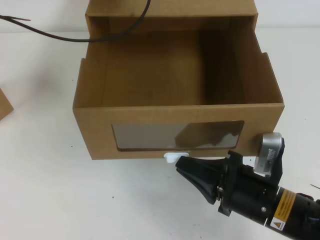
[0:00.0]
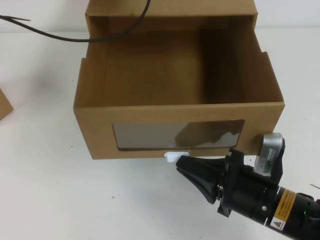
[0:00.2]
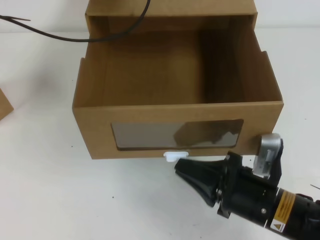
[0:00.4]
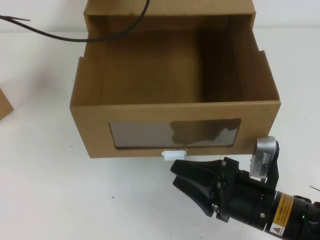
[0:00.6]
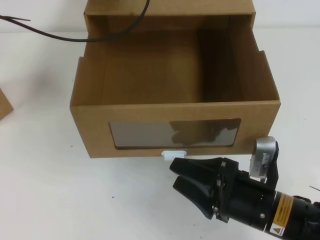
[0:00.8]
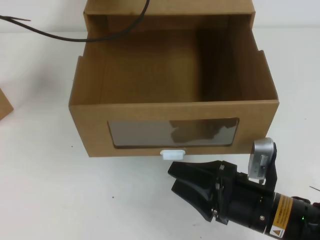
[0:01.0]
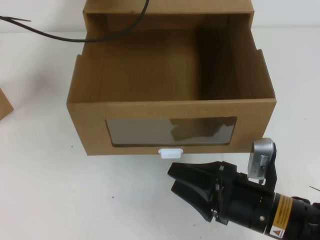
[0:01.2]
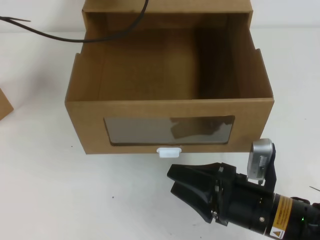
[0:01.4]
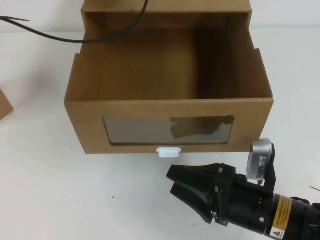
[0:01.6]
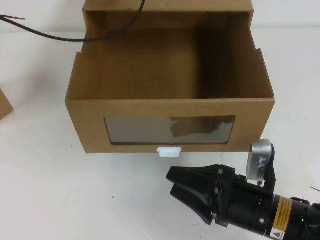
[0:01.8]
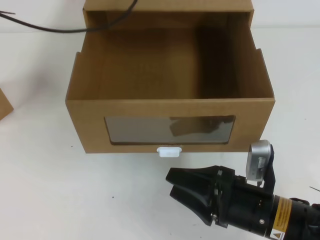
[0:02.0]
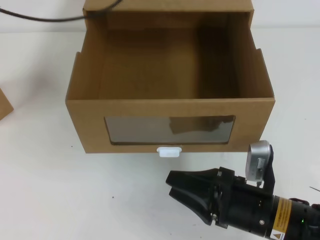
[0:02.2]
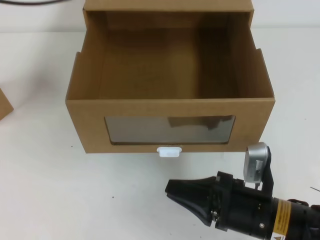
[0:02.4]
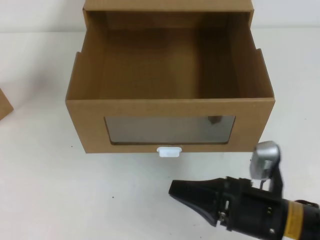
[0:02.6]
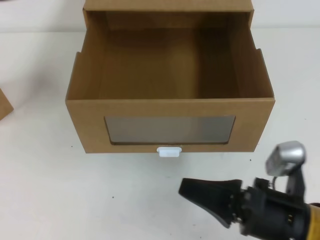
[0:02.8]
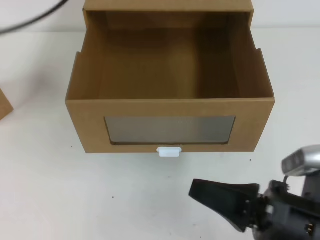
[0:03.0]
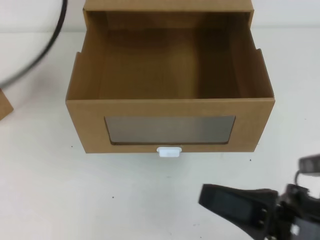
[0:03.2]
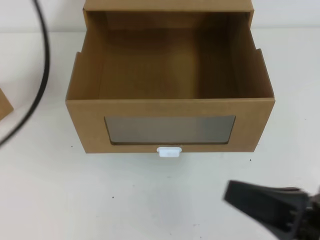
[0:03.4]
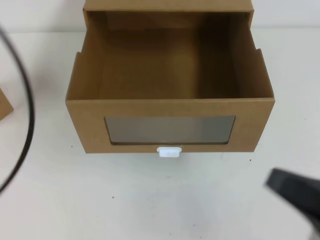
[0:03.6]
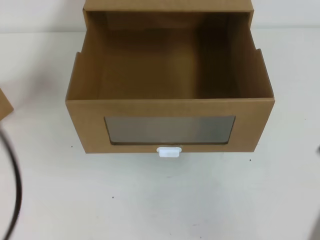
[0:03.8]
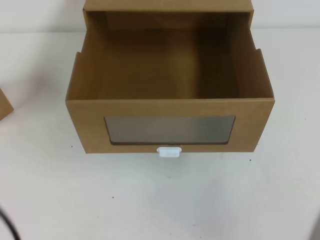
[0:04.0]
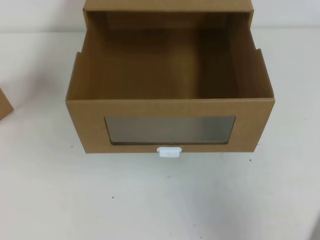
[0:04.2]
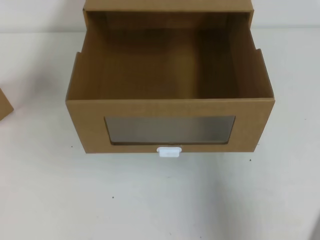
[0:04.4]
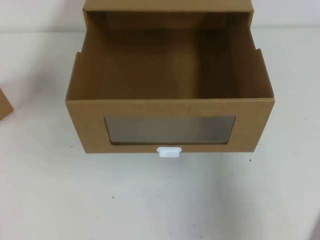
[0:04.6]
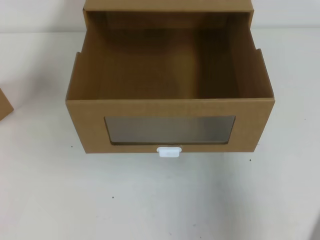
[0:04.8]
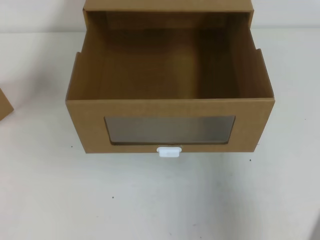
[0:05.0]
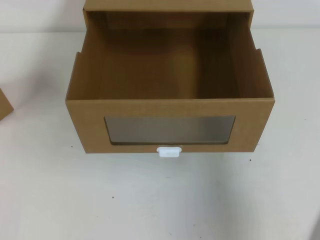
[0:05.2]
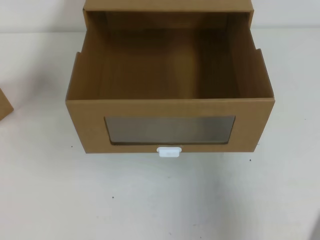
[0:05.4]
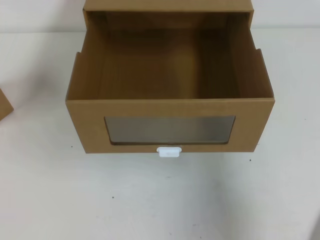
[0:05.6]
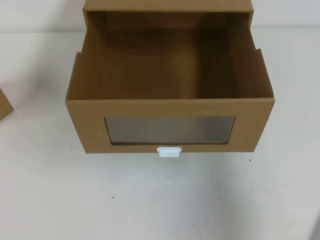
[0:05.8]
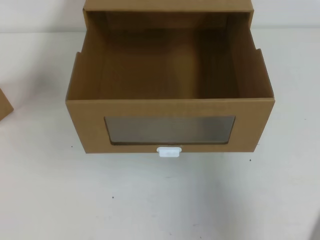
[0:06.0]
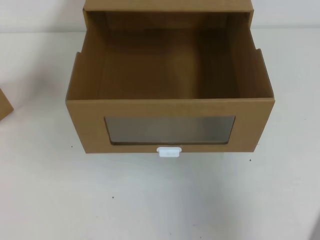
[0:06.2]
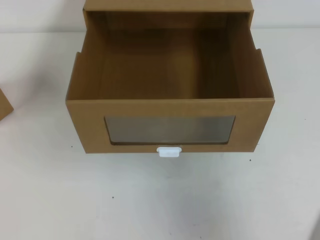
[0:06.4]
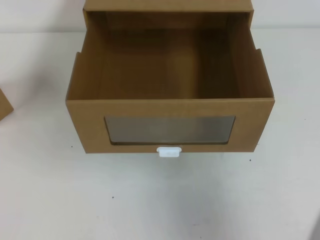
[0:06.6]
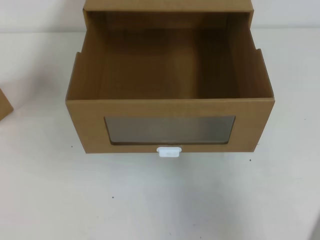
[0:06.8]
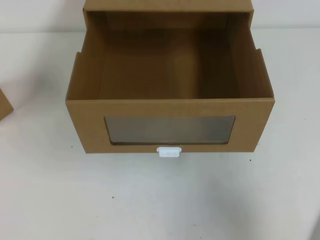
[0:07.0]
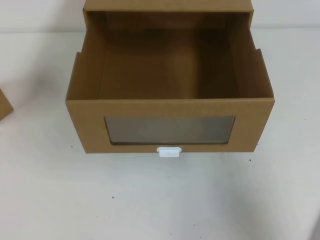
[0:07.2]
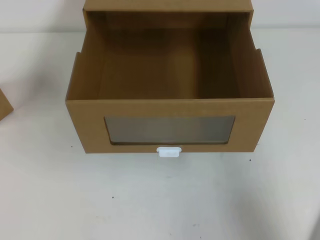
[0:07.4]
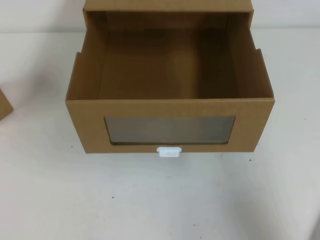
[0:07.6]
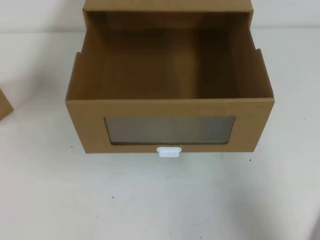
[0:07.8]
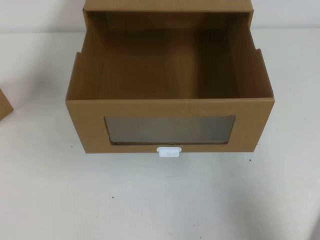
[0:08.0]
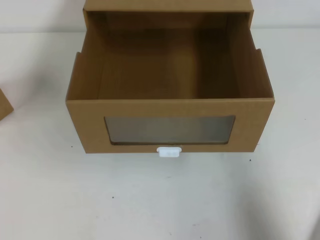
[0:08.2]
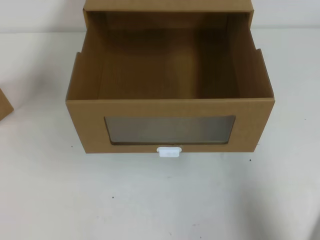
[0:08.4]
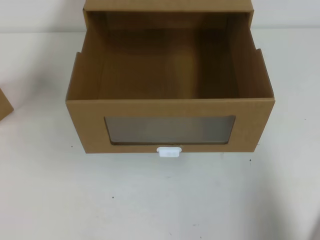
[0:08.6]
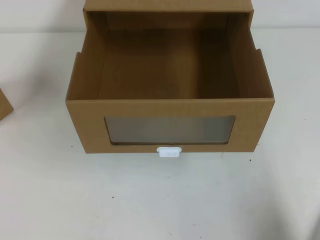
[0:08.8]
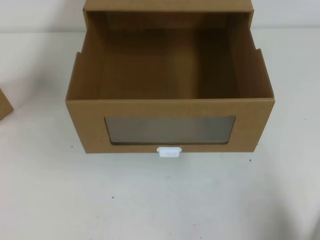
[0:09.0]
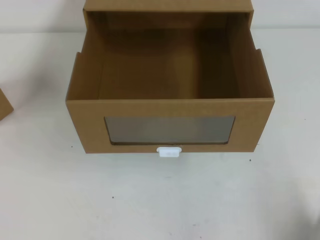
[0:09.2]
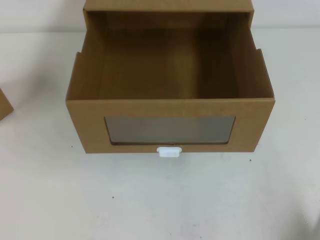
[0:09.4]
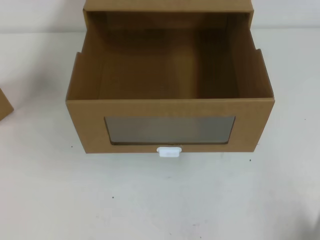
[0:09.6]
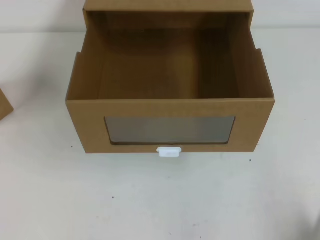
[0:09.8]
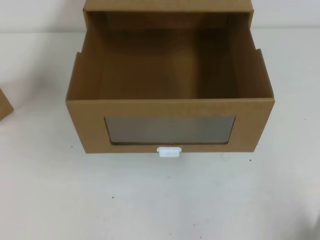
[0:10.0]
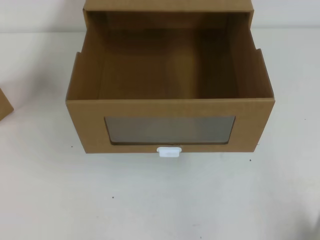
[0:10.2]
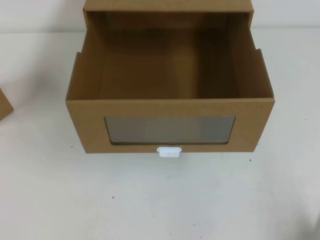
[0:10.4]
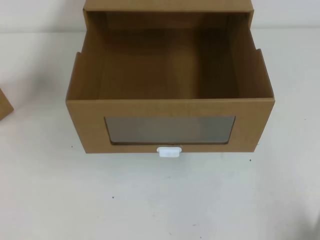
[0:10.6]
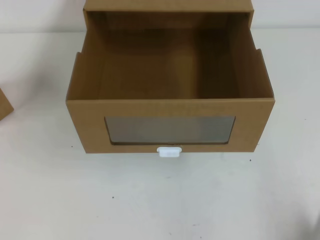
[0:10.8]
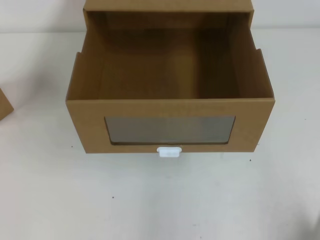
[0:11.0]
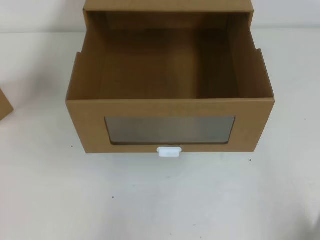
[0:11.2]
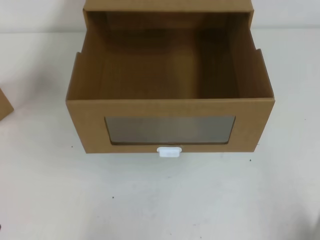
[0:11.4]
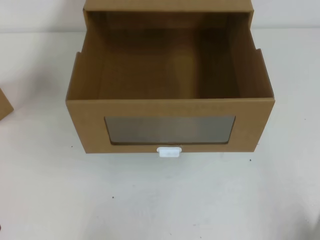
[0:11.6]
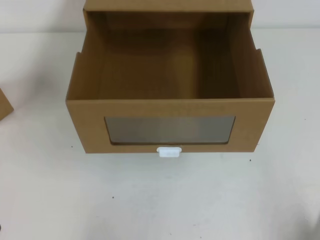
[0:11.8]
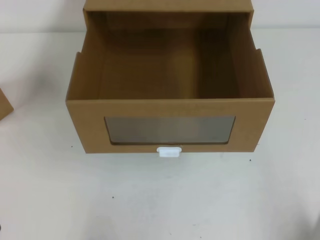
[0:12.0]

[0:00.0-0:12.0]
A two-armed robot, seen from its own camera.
Task of the whole recording: open the shoebox on the table.
Step, 0:00.0 to 0:12.0: Open the shoe box.
0:00.0 to 0:01.6: The right gripper opens.
0:01.6 to 0:03.0: The right gripper moves some 5 cm, and closes up. Meanwhile the left gripper shifts approximately 20 cm backward and upward.
0:03.0 to 0:04.4: The left gripper travels backward and downward by approximately 35 cm. The right gripper shifts approximately 20 cm to the right and upward.
0:06.0 to 0:07.6: The right gripper goes about 5 cm downward.
0:07.6 to 0:09.0: The right gripper shifts about 5 cm downward.
0:09.0 to 0:10.4: The right gripper goes roughly 5 cm downward.

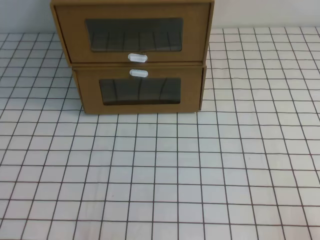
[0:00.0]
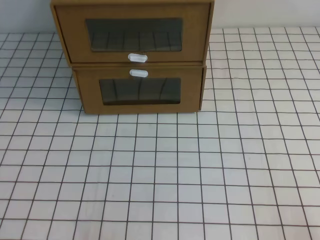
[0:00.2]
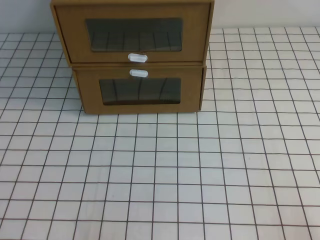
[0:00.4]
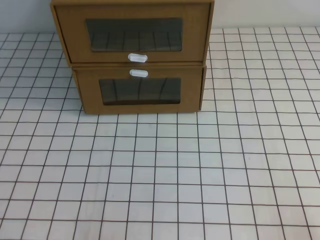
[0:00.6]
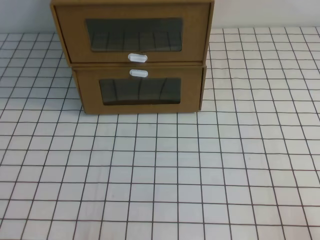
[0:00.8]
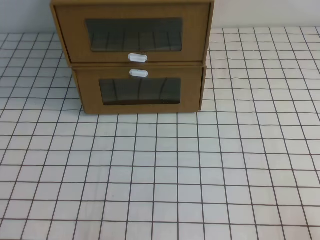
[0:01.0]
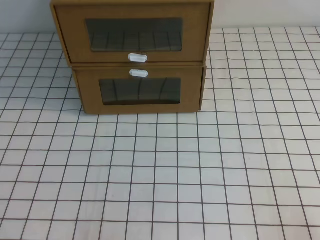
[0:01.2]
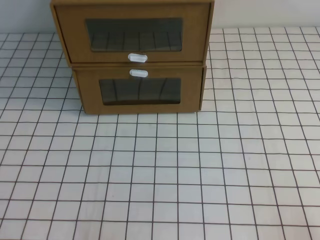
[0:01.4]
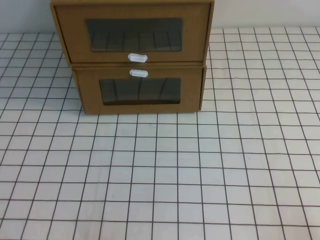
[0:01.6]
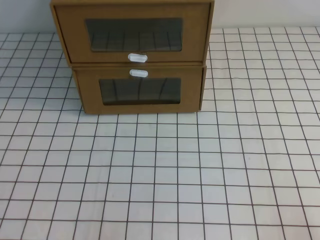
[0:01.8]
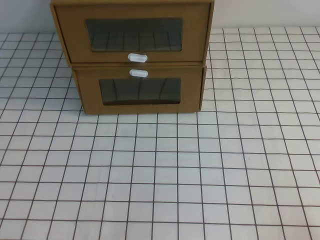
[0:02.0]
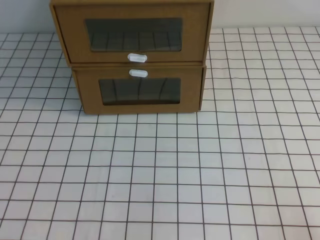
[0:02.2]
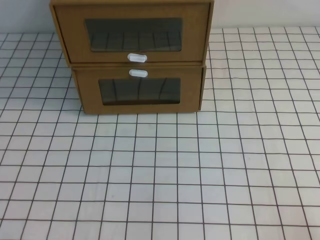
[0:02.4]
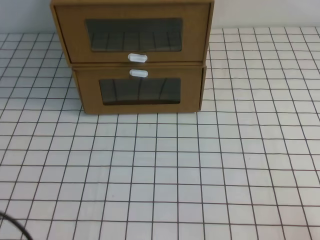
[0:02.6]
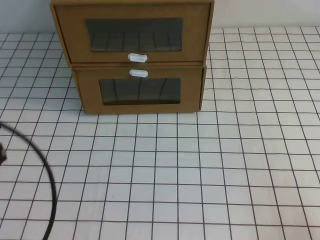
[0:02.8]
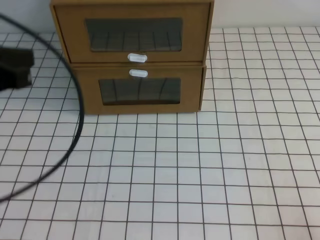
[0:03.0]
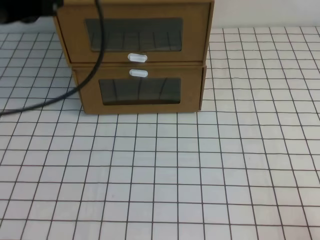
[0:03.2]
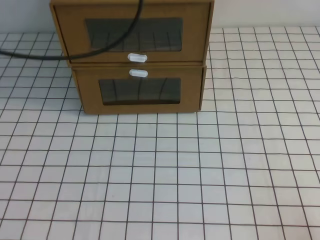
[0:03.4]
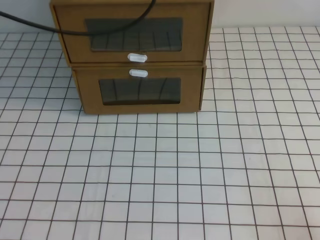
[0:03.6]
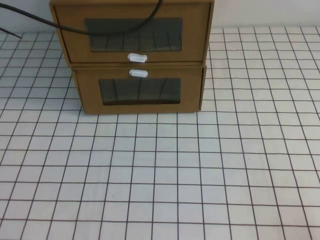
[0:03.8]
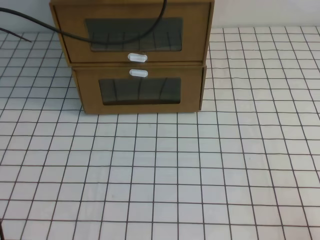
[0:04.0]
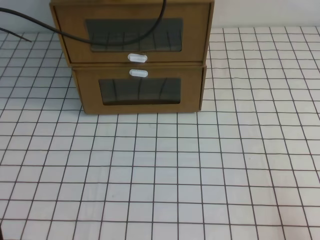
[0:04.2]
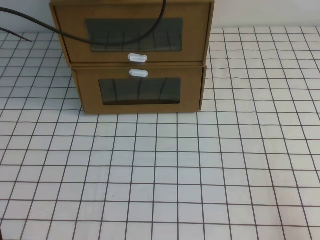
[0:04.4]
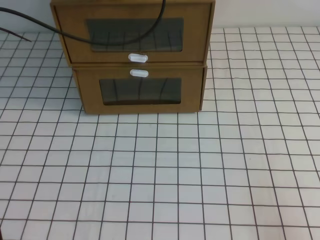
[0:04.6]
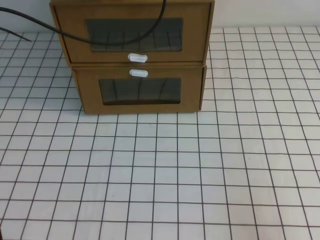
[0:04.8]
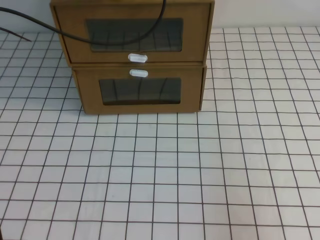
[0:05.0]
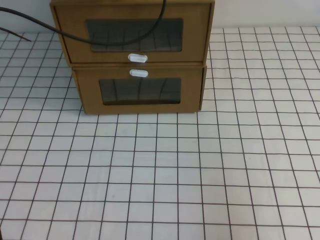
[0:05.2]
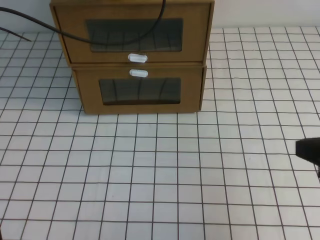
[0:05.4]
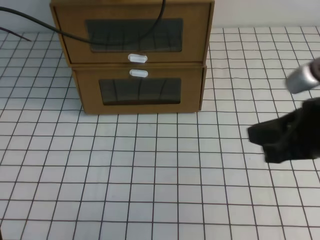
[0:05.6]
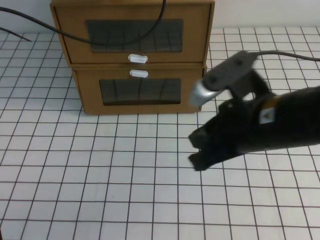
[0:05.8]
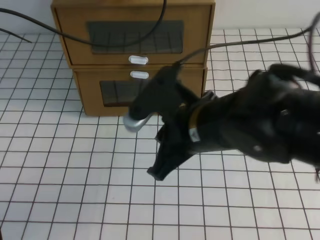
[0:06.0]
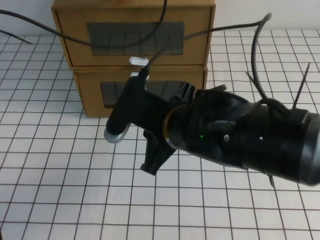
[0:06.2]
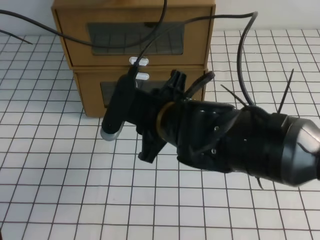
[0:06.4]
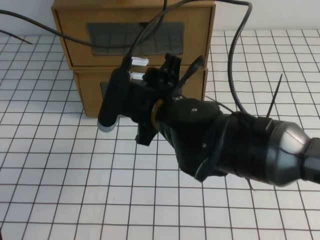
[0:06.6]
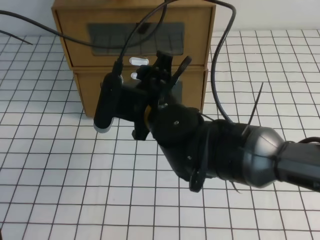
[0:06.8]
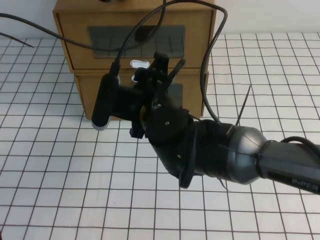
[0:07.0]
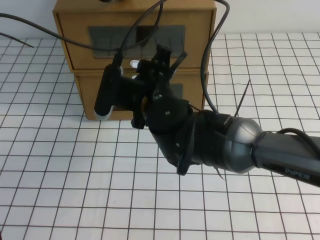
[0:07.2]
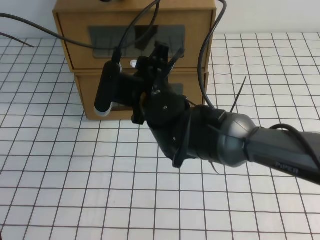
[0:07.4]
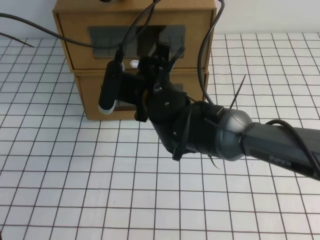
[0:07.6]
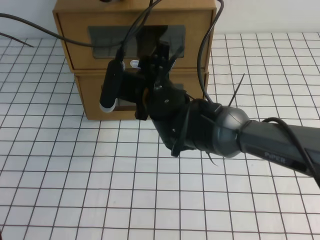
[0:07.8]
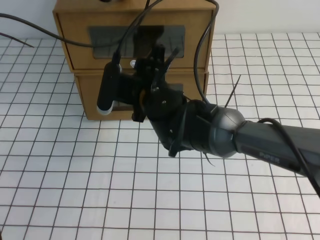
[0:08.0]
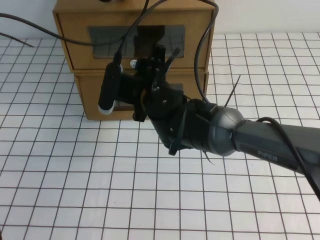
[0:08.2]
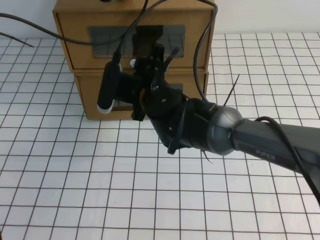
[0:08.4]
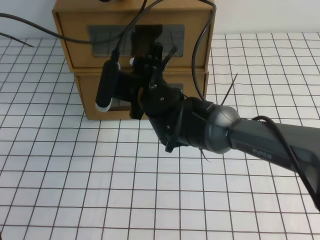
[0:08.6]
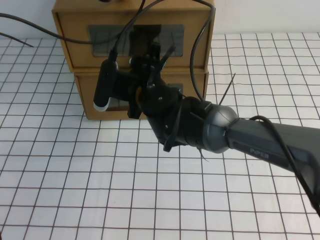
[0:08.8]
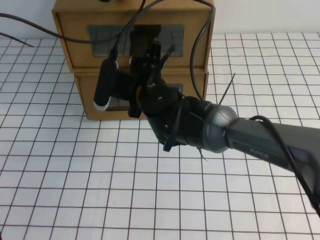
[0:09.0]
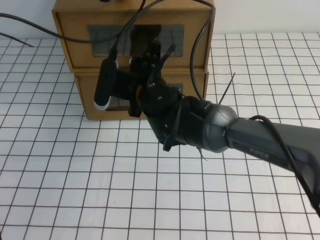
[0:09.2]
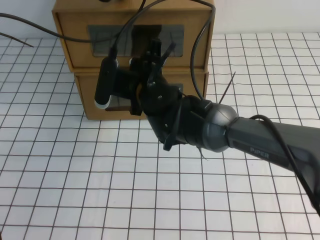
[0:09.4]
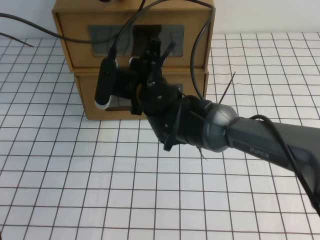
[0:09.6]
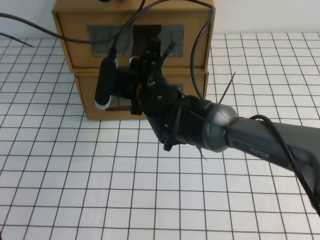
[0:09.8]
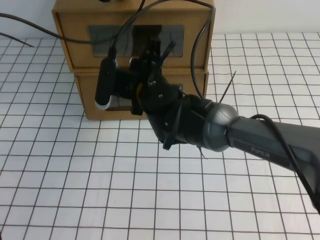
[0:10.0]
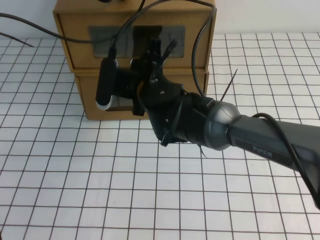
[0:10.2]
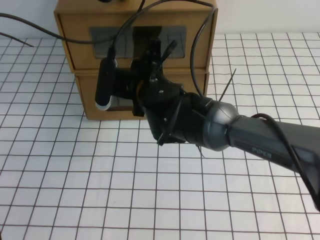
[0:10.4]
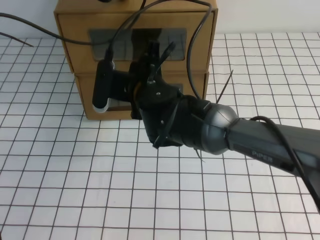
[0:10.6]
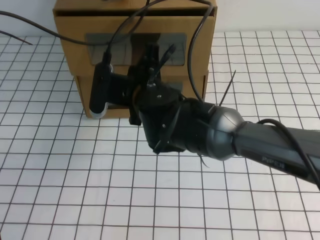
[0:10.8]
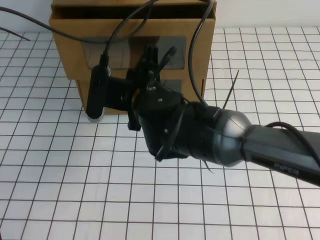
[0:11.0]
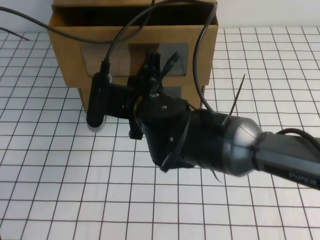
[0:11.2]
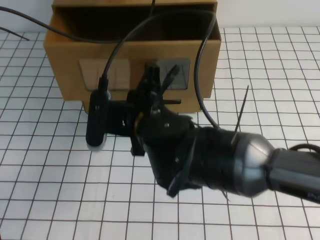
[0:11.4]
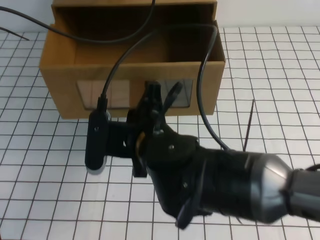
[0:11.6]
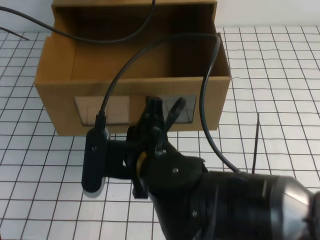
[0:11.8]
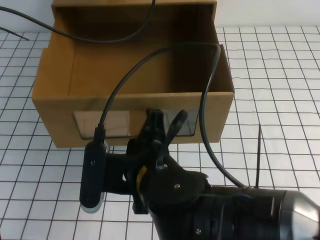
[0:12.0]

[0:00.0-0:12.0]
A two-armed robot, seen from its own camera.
Task of the whole recording: open the shoebox on the white tablecloth.
0:00.0 to 0:01.6: The two grippers keep their place.
0:01.6 to 0:03.0: The left gripper heads upward and forward, covering approximately 25 cm.
0:03.0 to 0:04.4: The left gripper heads forward, covering approximately 25 cm.
0:04.4 to 0:06.0: The right gripper moves to the left, forward and upward, about 30 cm.
0:06.0 to 0:07.6: The right gripper shifts roughly 15 cm forward and to the left, and opens its fingers.
0:07.6 to 0:09.0: The grippers move only a little.
0:09.0 to 0:10.4: The right gripper closes its fingers.
0:10.4 to 0:12.0: The right gripper moves backward, approximately 15 cm.
